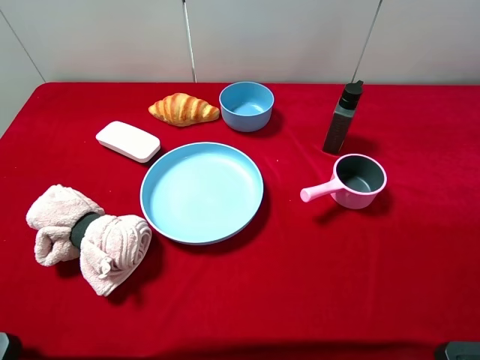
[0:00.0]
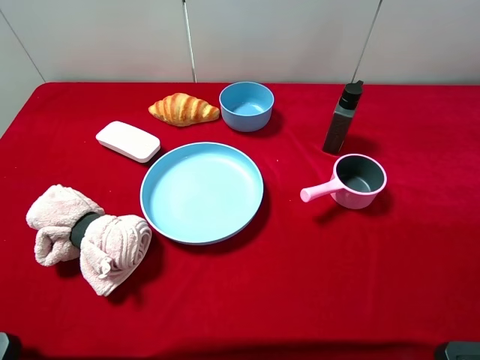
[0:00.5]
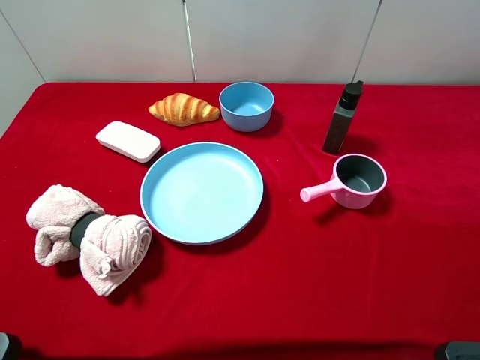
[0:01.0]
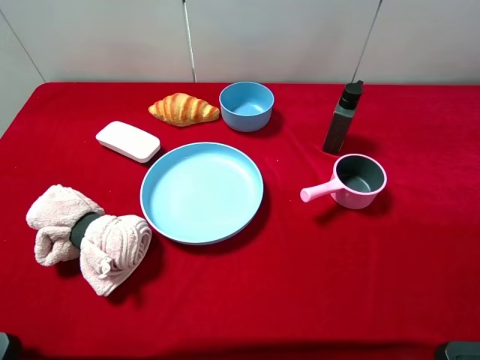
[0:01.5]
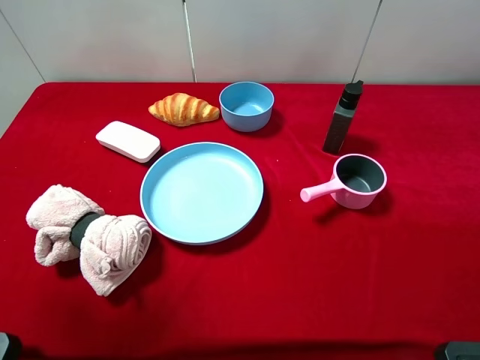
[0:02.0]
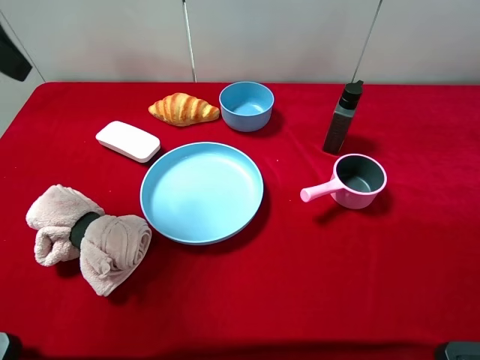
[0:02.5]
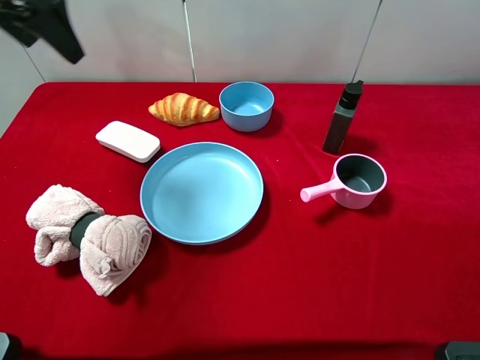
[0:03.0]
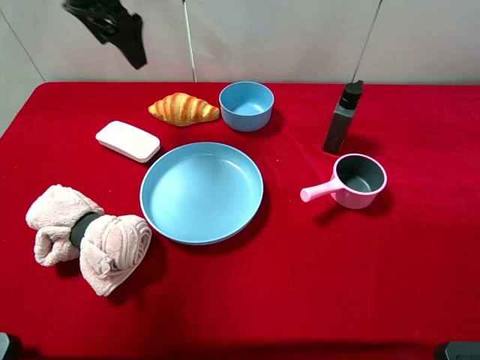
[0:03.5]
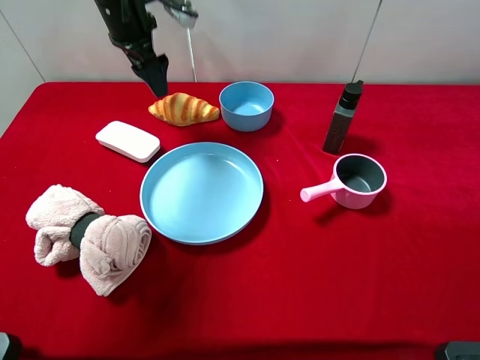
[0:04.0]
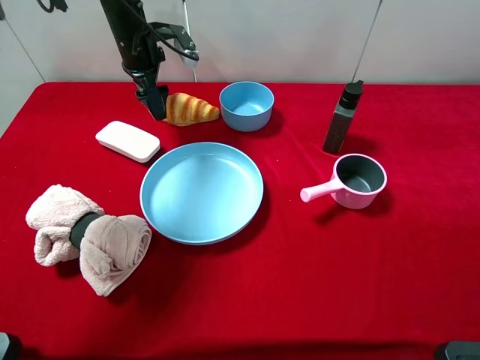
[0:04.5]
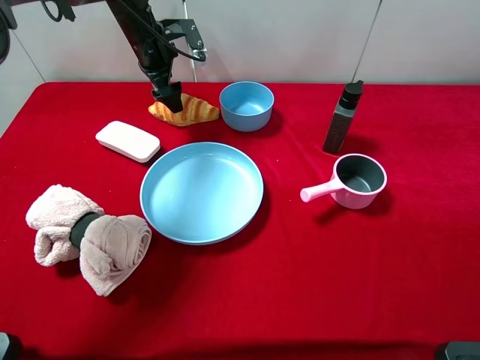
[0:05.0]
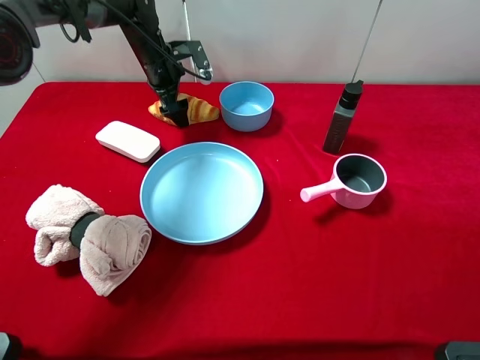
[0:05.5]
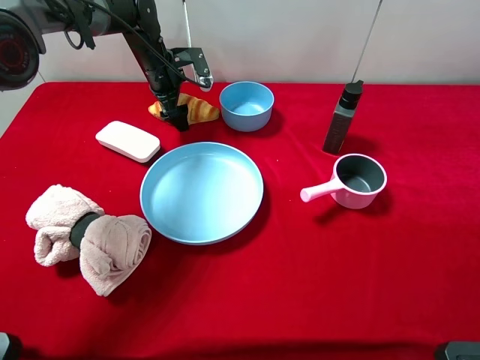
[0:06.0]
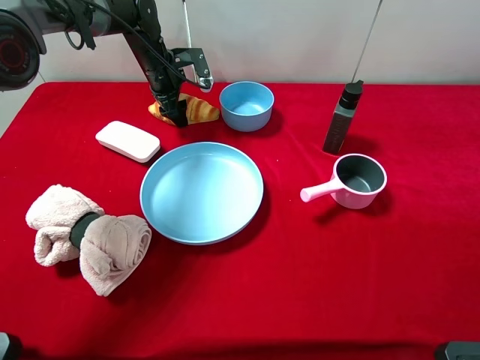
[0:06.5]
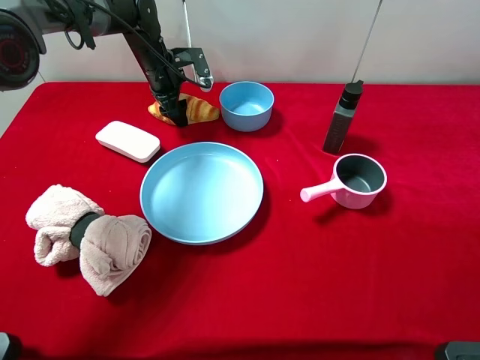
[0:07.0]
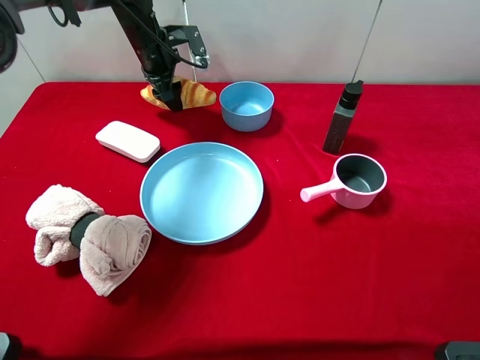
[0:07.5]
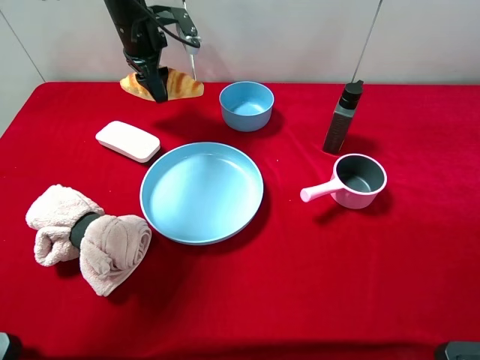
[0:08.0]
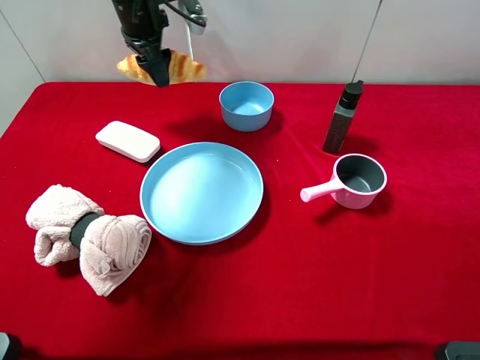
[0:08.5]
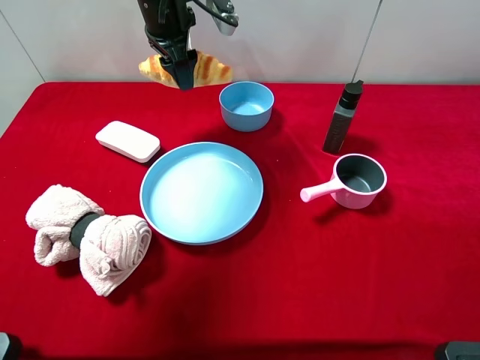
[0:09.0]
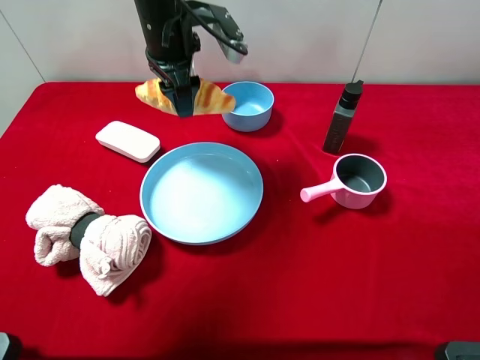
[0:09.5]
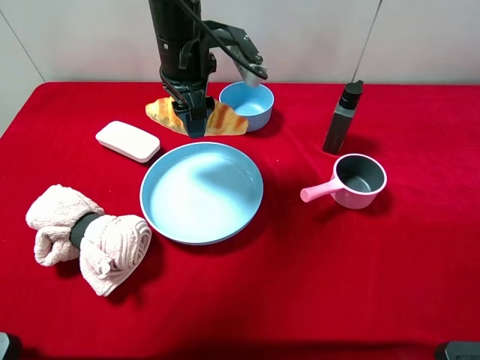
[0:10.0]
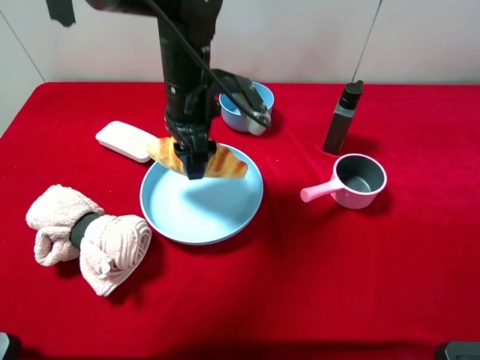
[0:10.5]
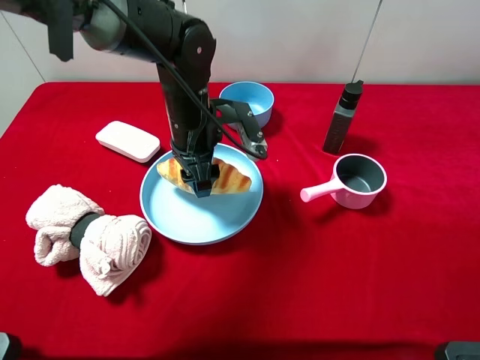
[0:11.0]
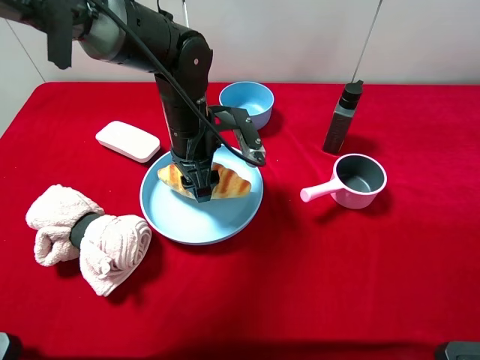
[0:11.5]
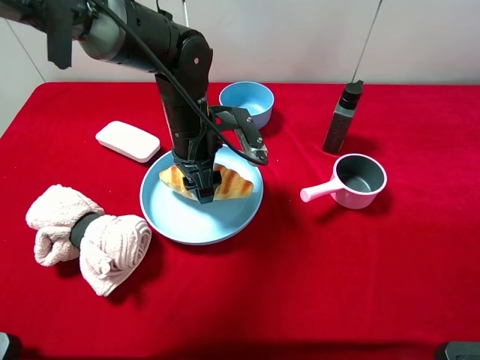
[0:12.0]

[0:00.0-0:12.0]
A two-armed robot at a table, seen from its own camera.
Task of the whole recording: pick up an item with a gripper and place it in a random container on the desktop.
0:00.0 to 0:02.0: The left gripper goes approximately 15 cm forward and upward.
0:02.0 to 0:04.0: The left gripper heads forward, downward and to the right, covering roughly 40 cm.
0:04.0 to 0:06.0: The left gripper shifts some 10 cm downward.
0:06.0 to 0:08.0: The left gripper moves upward, about 10 cm, and closes.
0:08.0 to 0:10.0: The left gripper heads backward and to the right, covering approximately 15 cm.
0:10.0 to 0:12.0: The left gripper goes some 10 cm downward and backward.

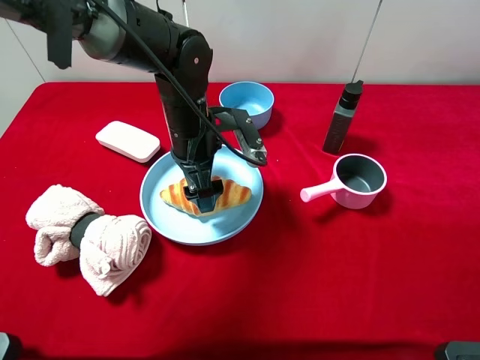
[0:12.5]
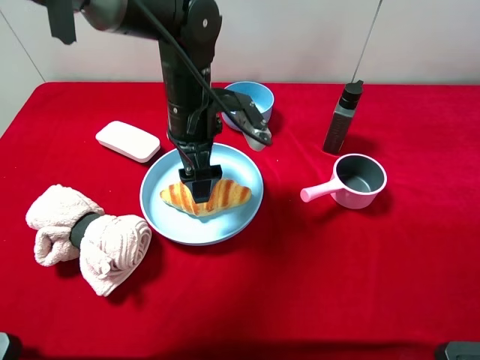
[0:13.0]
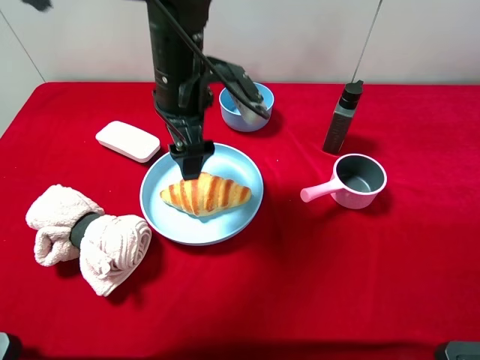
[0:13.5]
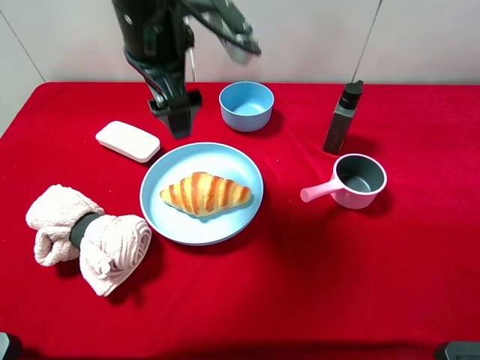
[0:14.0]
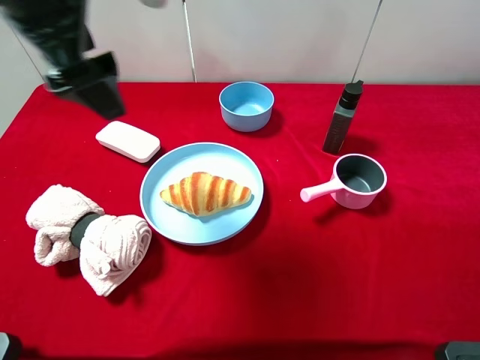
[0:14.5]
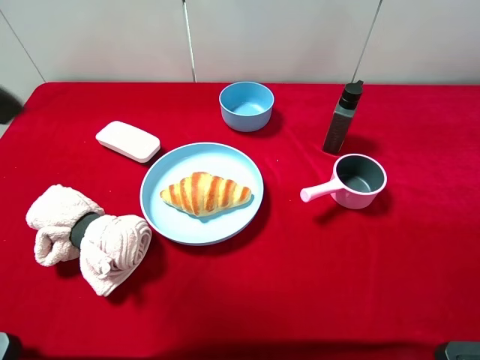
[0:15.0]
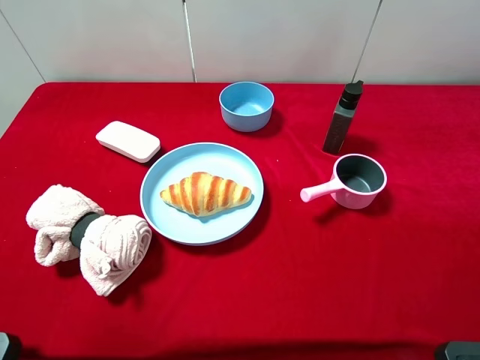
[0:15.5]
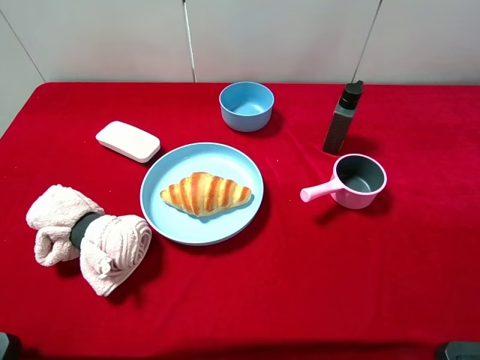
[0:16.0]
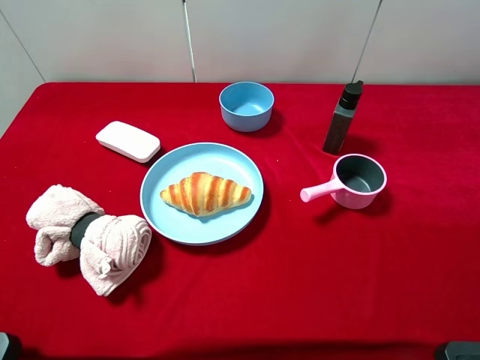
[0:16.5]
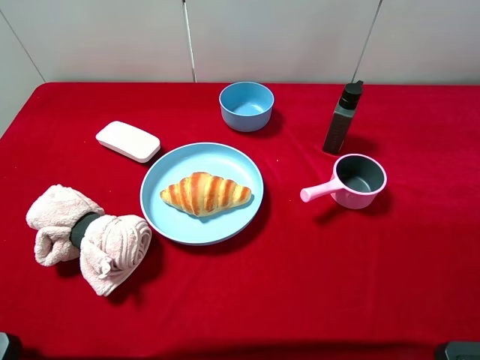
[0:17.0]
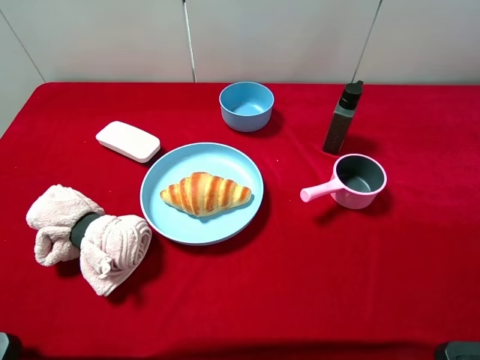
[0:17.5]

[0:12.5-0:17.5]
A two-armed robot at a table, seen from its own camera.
Task of the whole recording: pick up an item with a gripper and place it in a random container on the desktop.
0:12.5 to 0:15.0: The left gripper shifts roughly 35 cm upward, backward and to the left.
0:15.0 to 0:17.5: The left gripper travels backward, downward and to the left by approximately 20 cm.
